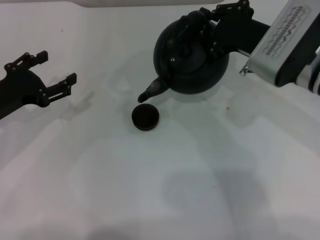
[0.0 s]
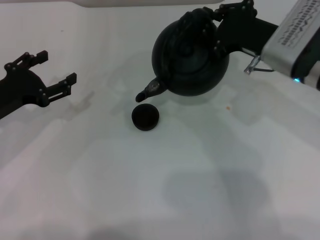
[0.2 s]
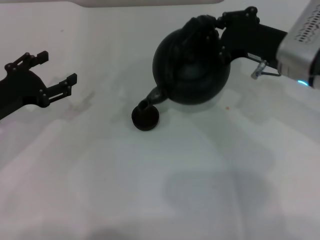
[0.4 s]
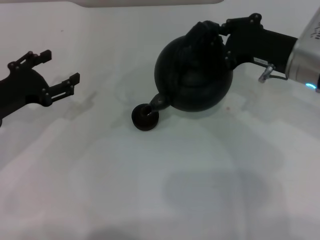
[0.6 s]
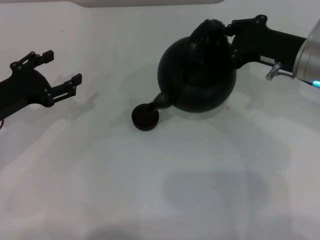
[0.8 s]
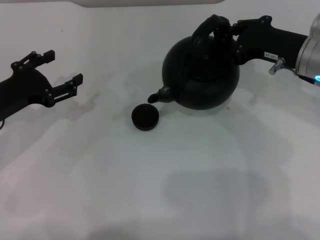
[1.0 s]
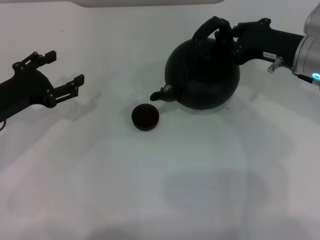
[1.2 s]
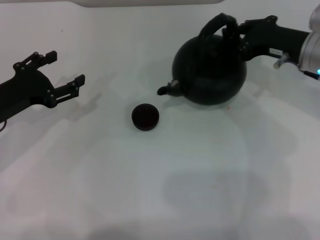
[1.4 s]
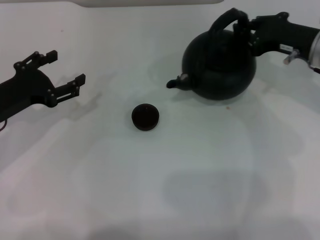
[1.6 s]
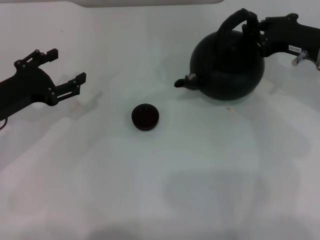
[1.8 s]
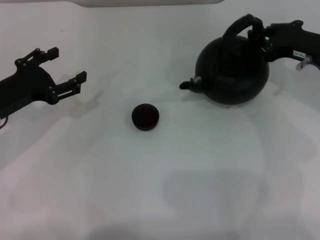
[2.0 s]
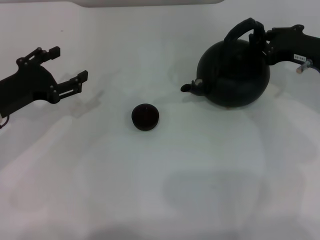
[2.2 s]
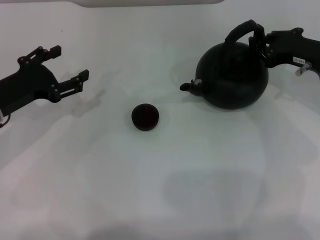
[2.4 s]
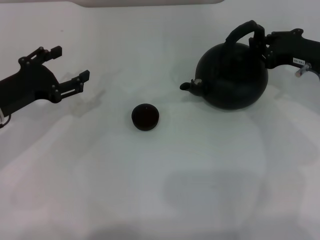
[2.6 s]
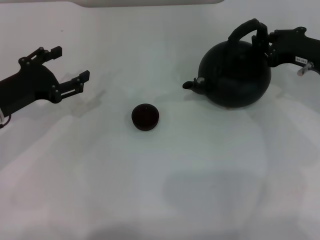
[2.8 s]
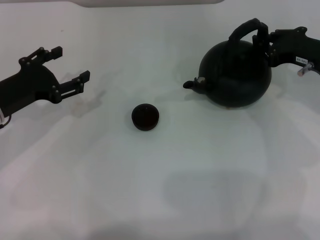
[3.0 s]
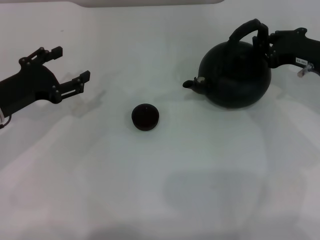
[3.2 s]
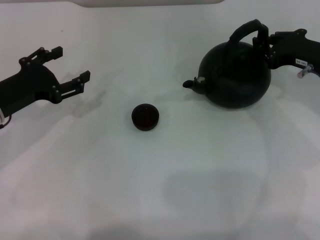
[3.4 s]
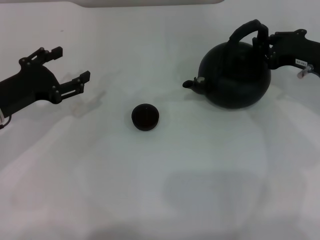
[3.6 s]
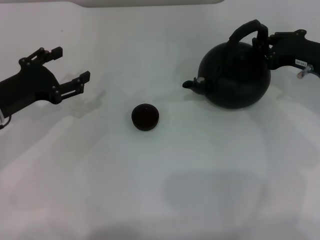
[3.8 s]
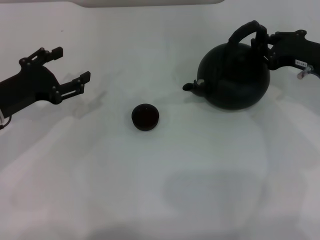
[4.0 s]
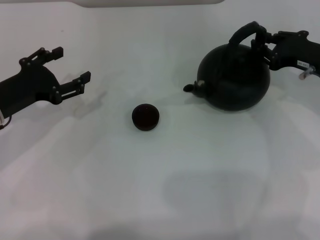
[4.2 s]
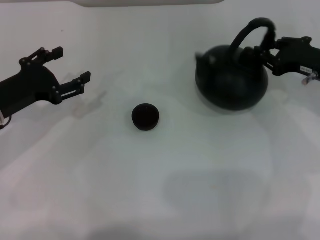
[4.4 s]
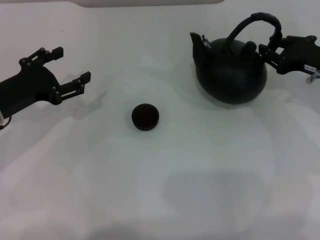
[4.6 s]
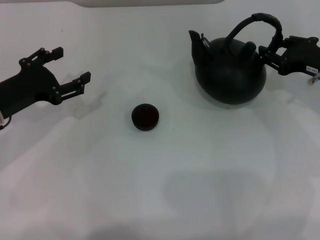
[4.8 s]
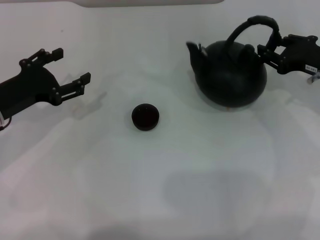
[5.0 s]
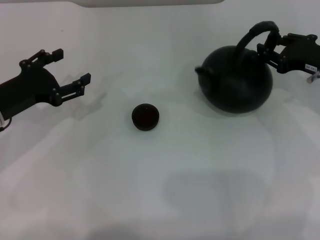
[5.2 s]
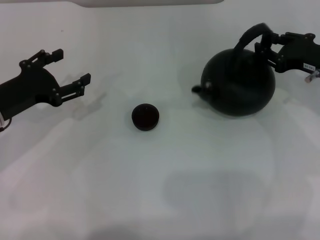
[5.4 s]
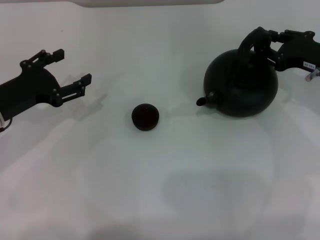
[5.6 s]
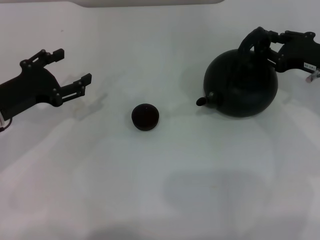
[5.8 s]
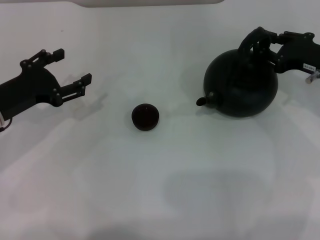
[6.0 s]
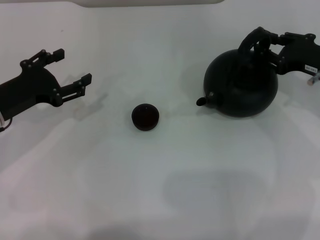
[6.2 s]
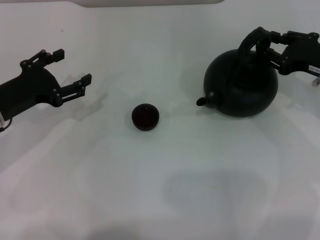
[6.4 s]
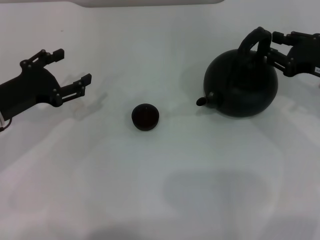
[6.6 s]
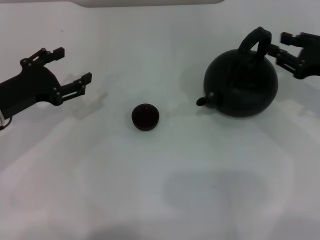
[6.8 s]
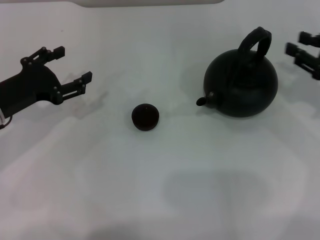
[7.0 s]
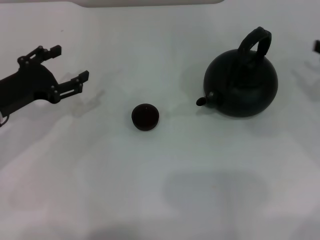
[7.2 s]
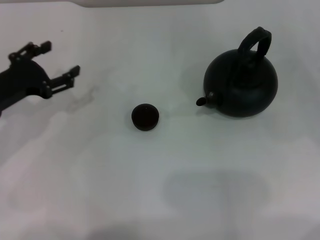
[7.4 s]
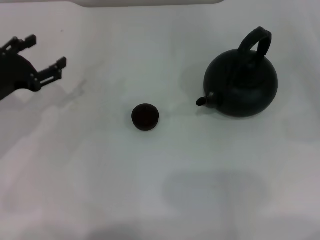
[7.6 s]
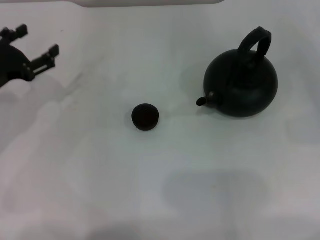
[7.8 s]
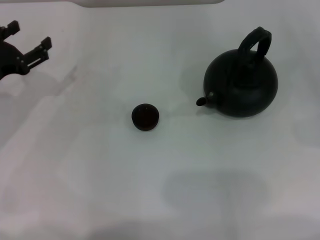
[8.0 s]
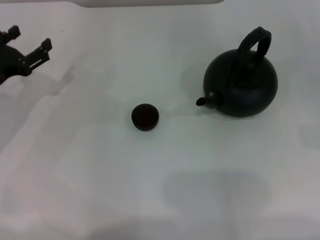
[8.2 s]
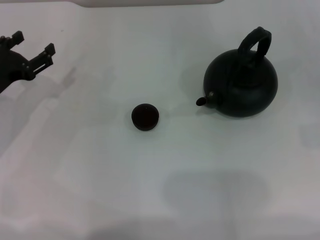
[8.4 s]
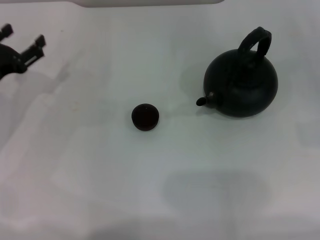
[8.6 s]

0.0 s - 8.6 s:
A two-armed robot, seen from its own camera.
Task of the whole recording: Grasp the handle of the teapot with one hand and pour tea into the teacup.
Step, 1.4 s - 6.6 s: Put down the teapot with the right gripper.
0.0 s - 1.4 s: The right gripper goes roughly 5 cm to the right.
1.4 s - 4.4 s: The grippers stay close to where they were, moving slightly.
4.4 s - 5.8 s: The two grippers keep their place.
5.8 s - 7.2 s: The right gripper goes approximately 10 cm to the right and backward.
